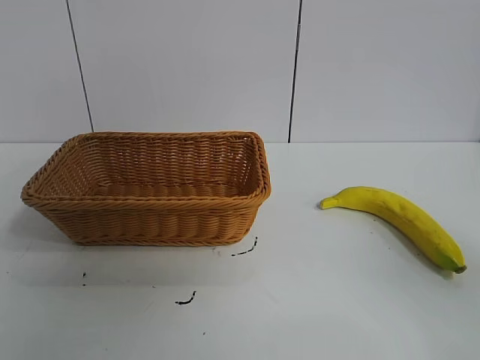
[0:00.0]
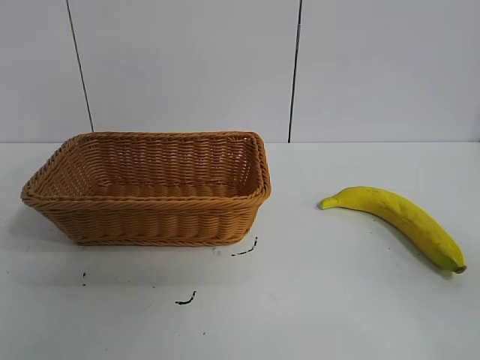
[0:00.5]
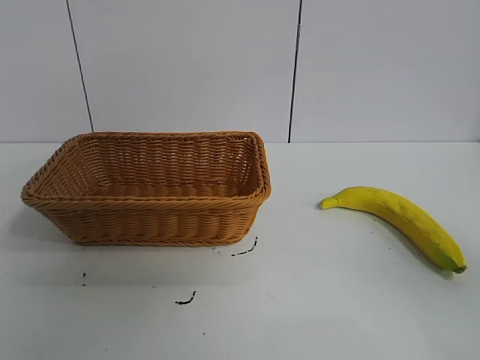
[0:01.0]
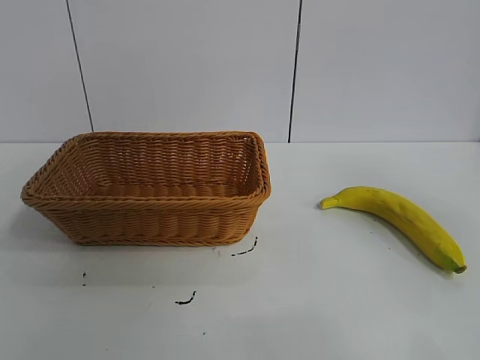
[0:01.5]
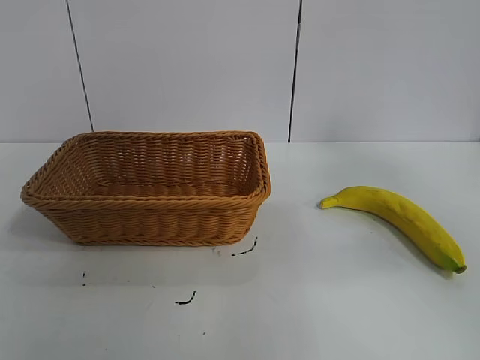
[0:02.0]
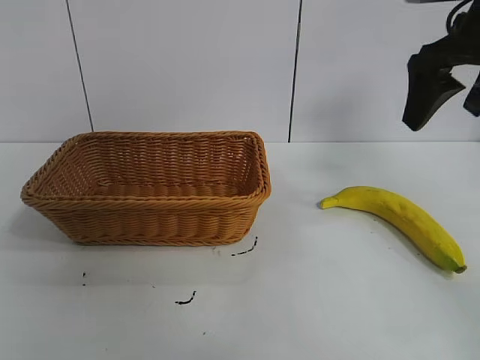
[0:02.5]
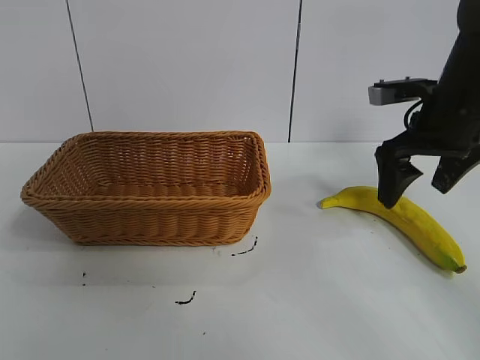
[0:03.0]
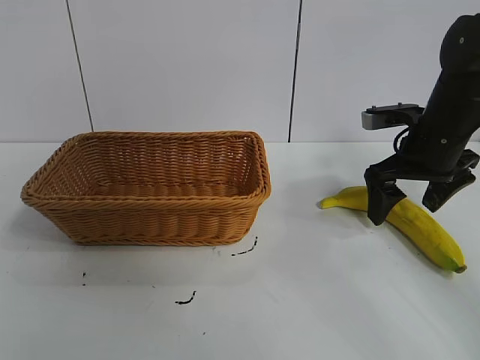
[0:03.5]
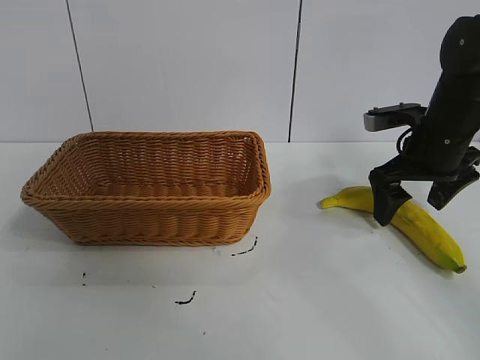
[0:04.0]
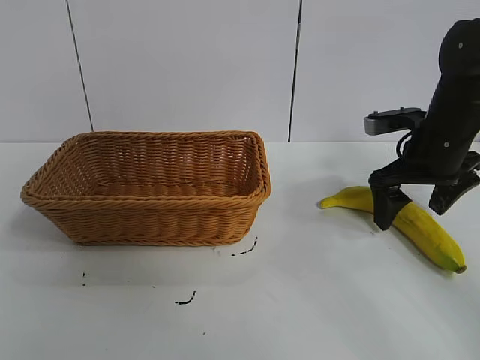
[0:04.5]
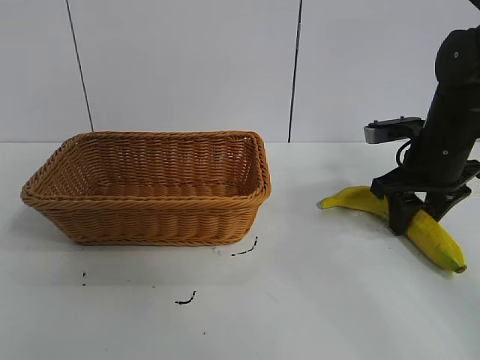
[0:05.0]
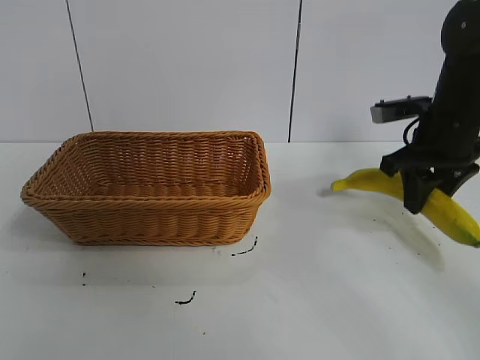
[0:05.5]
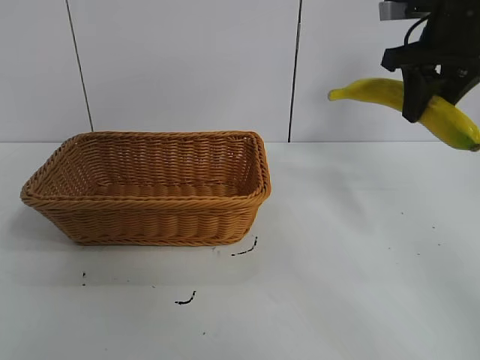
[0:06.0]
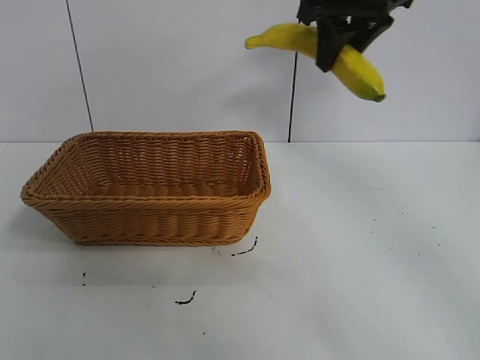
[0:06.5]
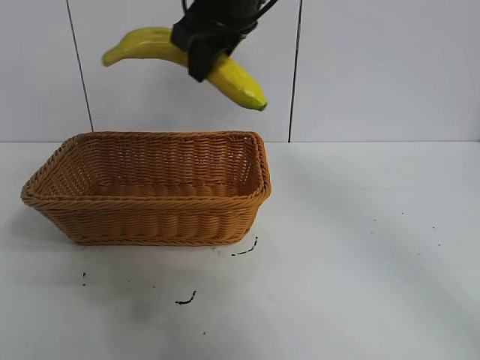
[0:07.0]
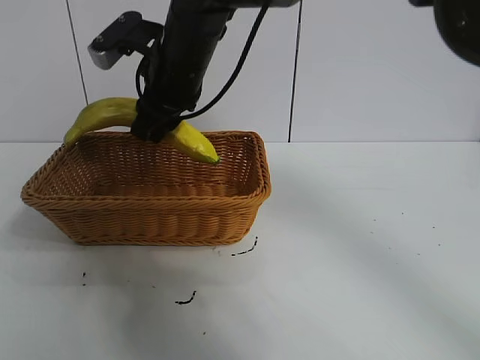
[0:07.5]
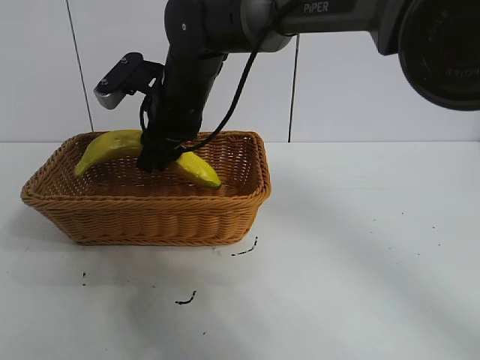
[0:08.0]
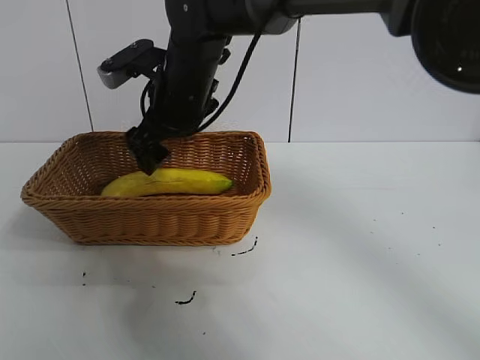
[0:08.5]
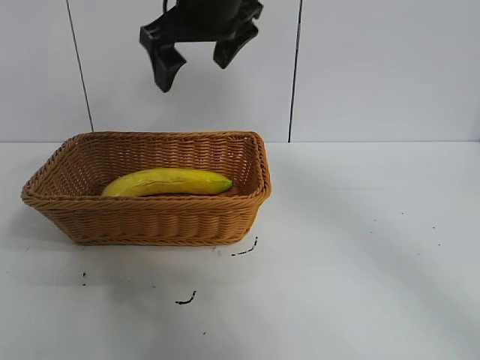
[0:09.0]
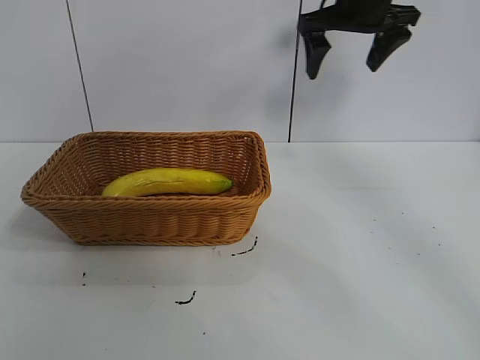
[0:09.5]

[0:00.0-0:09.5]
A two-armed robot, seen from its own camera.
Task of the whole recording: pick up the banana and put it into the basket.
Step, 0:01.0 to 0:05.0: Grasp the banana with right gripper.
Step, 0:05.5 to 0:08.0: Place the banana in the basket with right gripper.

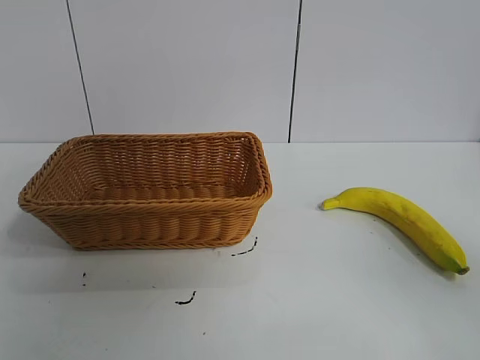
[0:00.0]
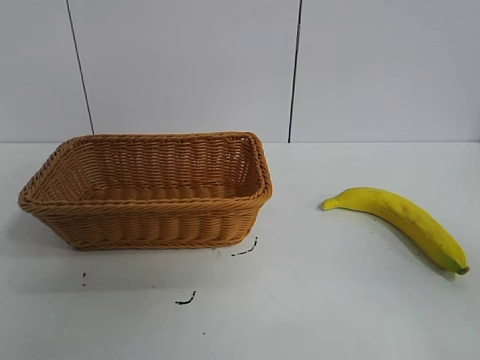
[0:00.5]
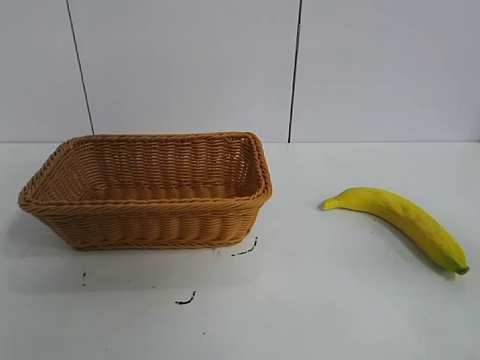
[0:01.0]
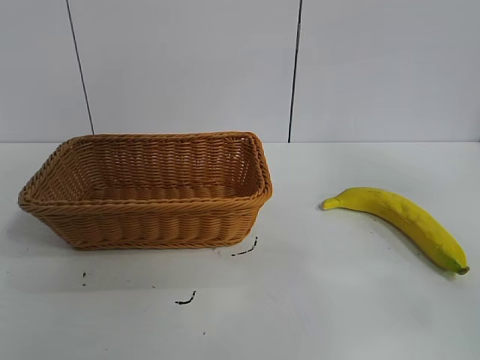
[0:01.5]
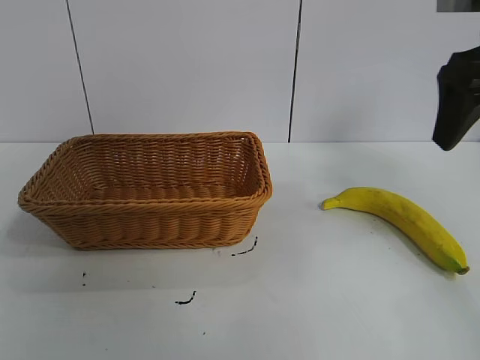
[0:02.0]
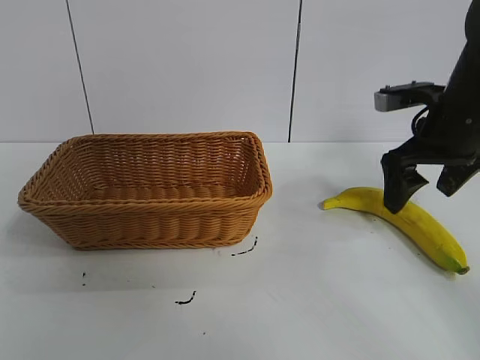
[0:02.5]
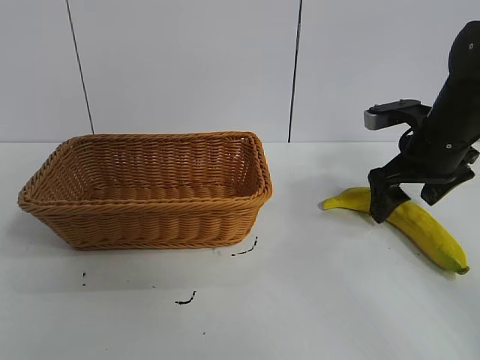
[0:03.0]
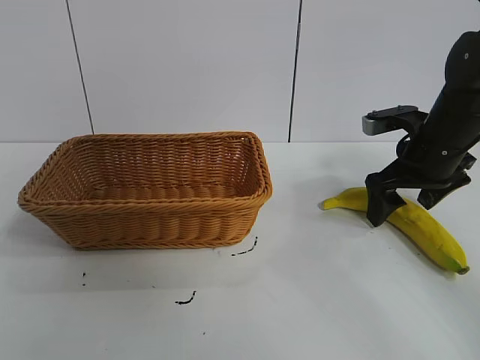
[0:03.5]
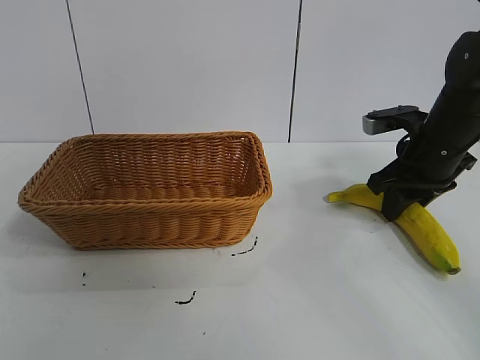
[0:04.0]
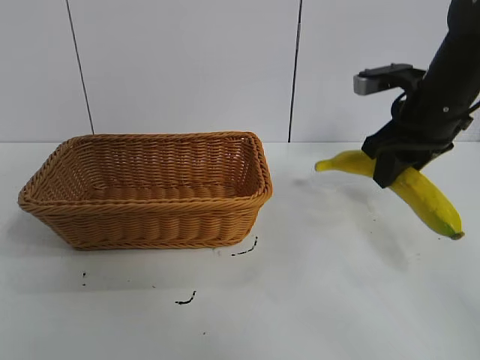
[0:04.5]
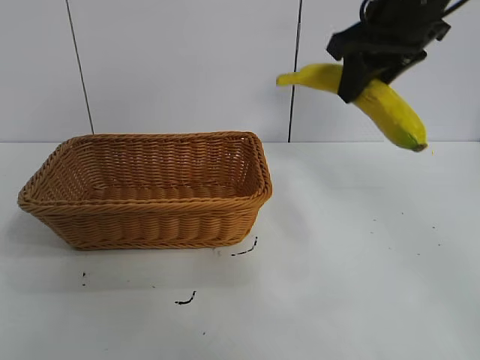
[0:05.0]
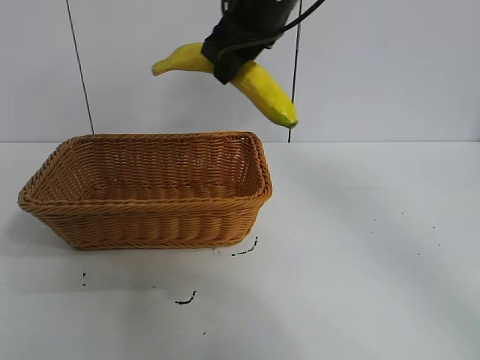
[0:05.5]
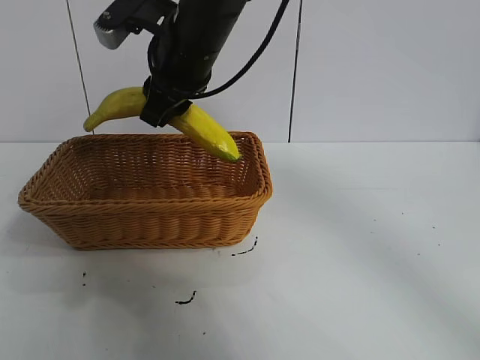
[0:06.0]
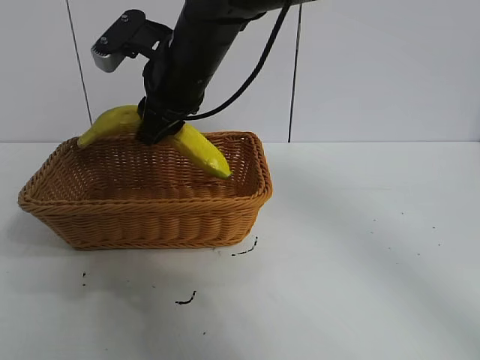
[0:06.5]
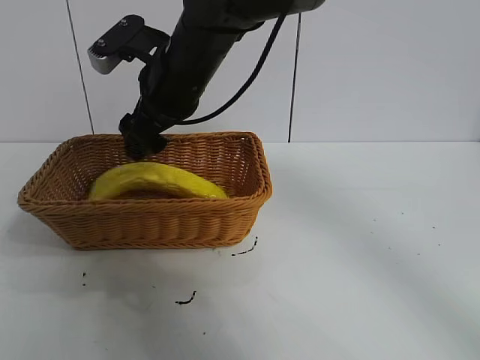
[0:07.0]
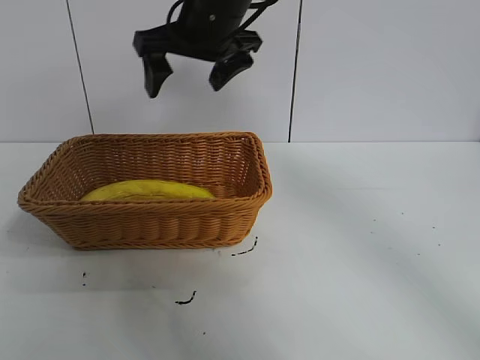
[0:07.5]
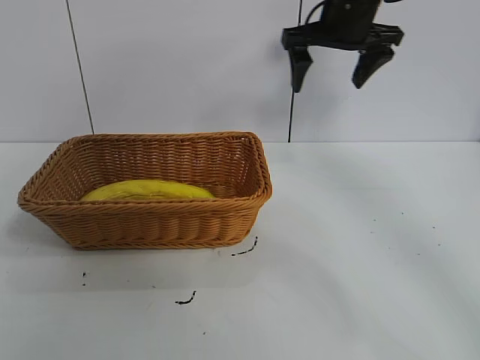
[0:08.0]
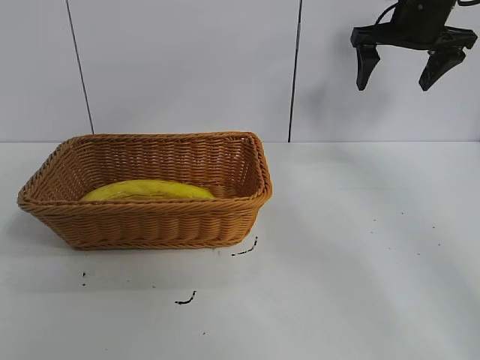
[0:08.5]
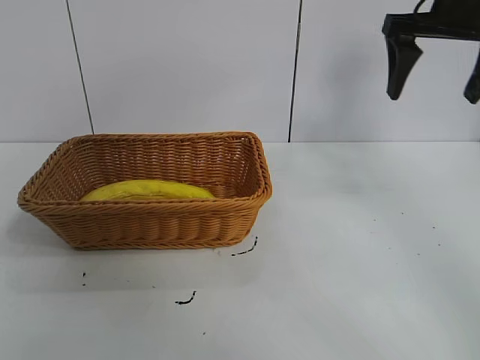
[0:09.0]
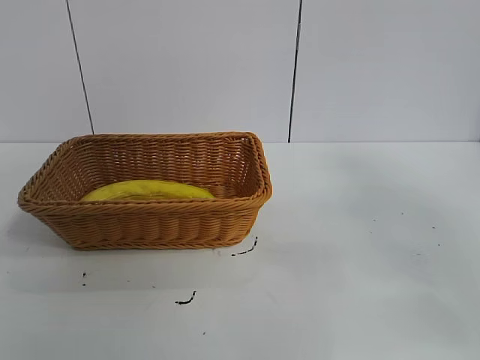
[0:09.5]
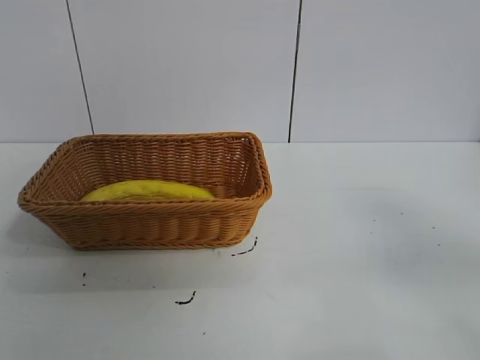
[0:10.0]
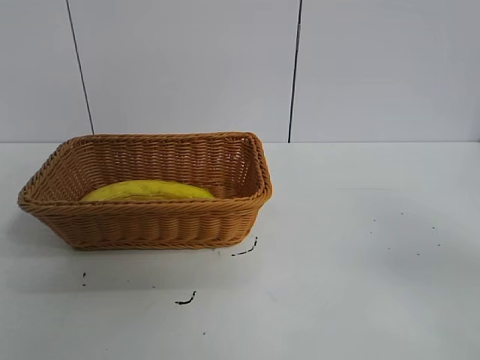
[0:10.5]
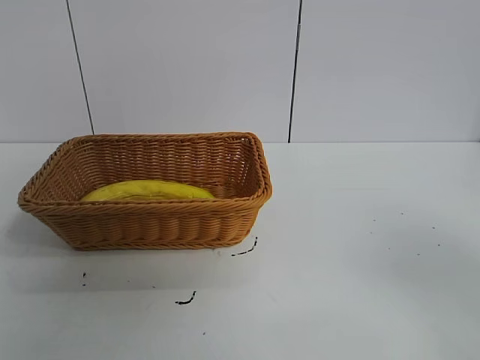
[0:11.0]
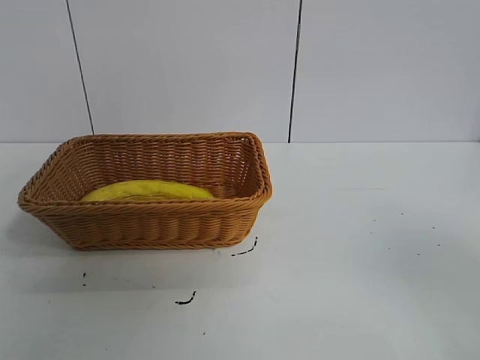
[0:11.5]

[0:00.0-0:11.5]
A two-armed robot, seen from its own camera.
Task of the whole recording: pick up the banana and put it into the basket.
Step, 0:01.0 to 0:04.0: Grasp the banana with right gripper.
Step, 0:04.5 to 0:07.0: Place the banana in the basket with right gripper.
